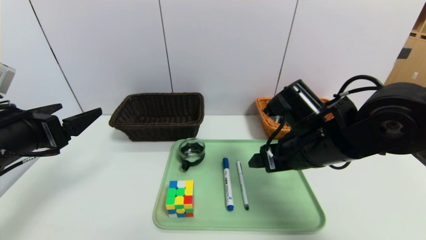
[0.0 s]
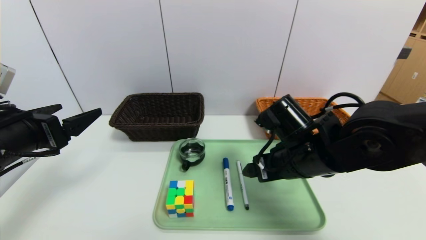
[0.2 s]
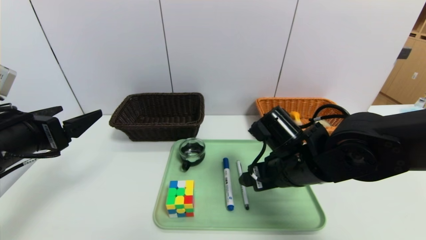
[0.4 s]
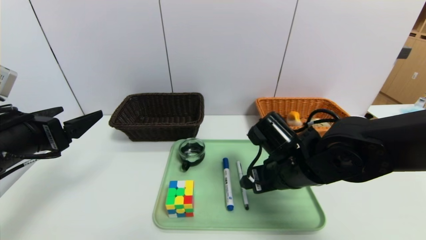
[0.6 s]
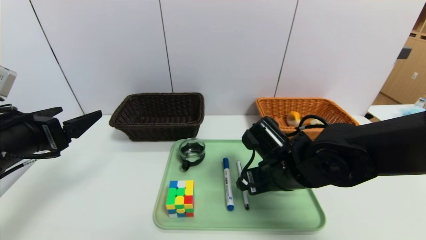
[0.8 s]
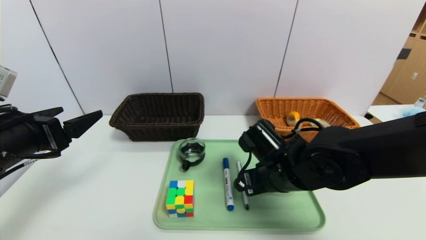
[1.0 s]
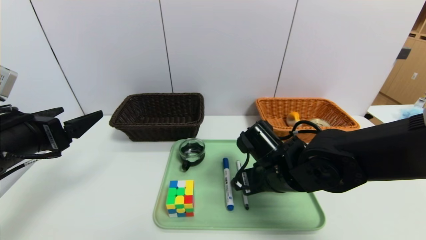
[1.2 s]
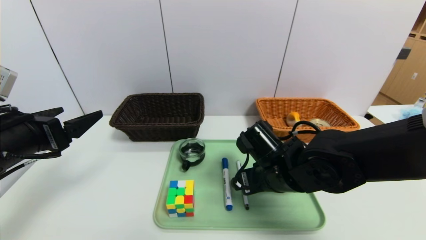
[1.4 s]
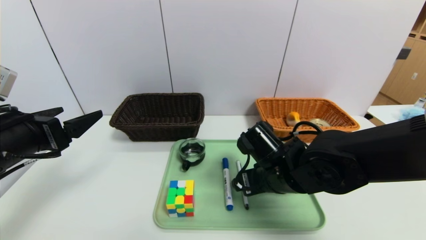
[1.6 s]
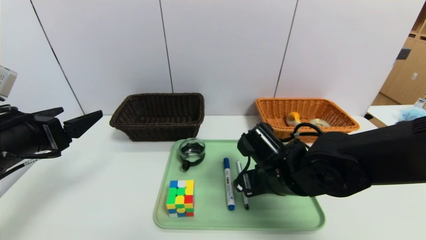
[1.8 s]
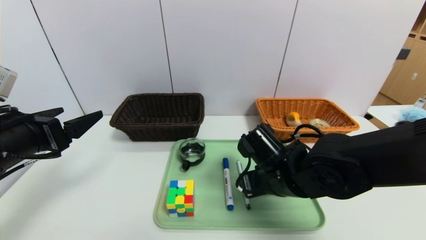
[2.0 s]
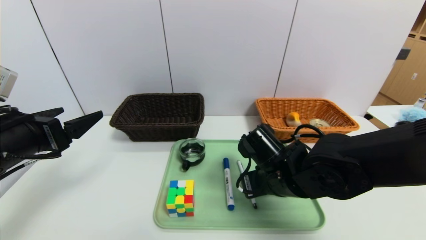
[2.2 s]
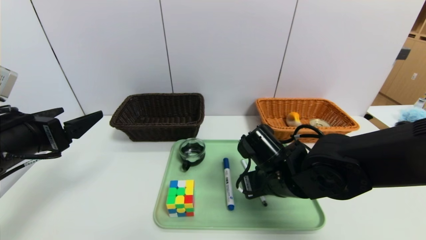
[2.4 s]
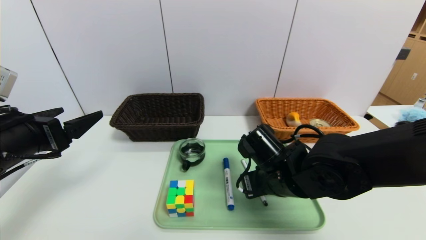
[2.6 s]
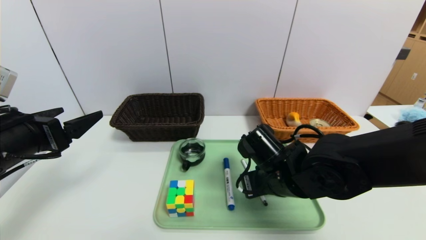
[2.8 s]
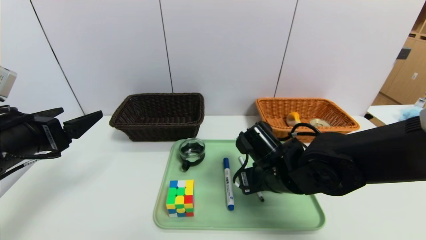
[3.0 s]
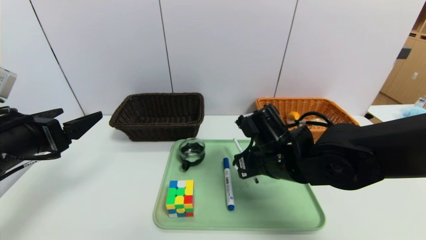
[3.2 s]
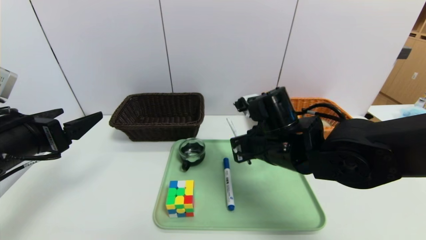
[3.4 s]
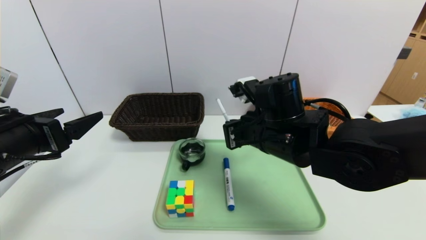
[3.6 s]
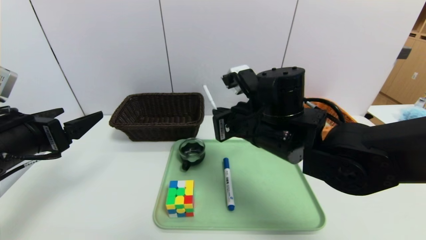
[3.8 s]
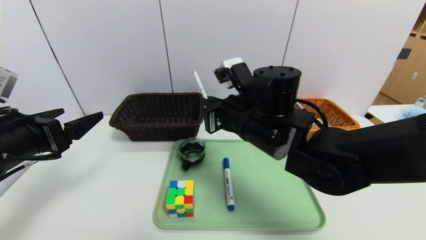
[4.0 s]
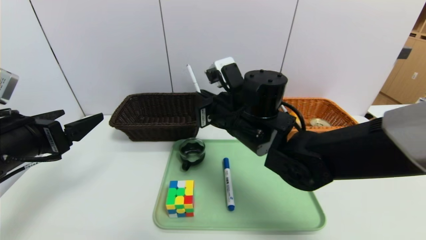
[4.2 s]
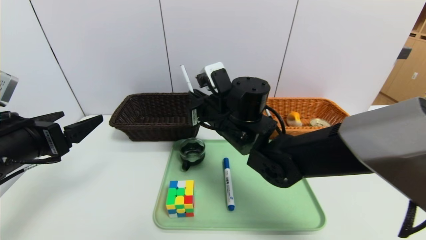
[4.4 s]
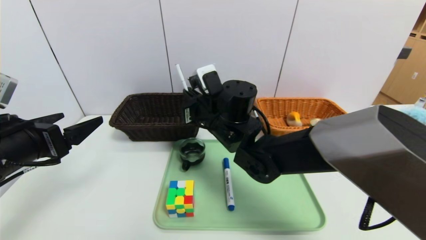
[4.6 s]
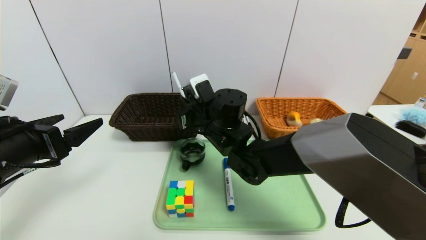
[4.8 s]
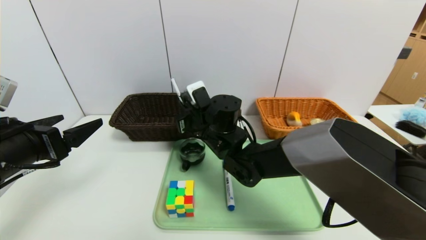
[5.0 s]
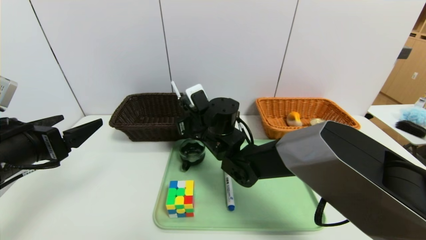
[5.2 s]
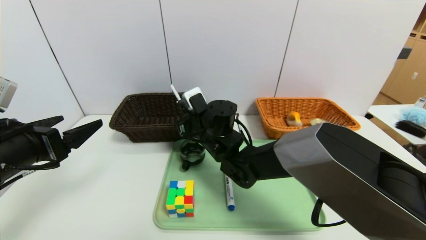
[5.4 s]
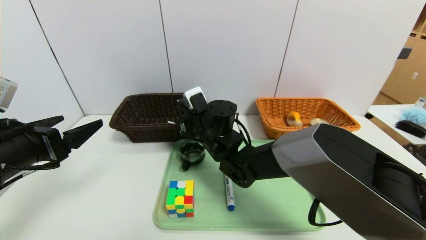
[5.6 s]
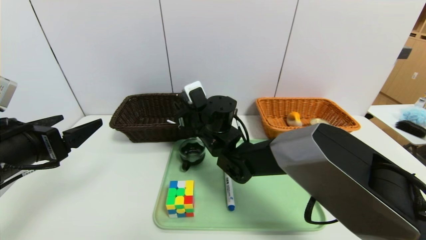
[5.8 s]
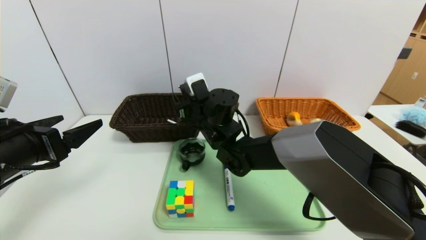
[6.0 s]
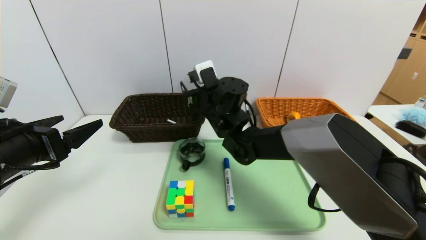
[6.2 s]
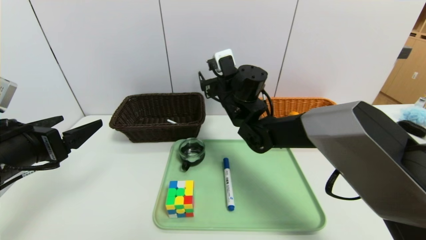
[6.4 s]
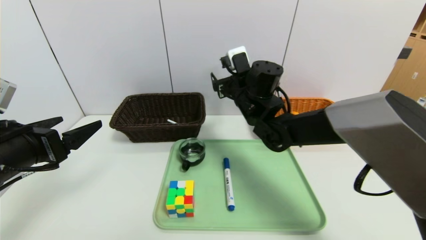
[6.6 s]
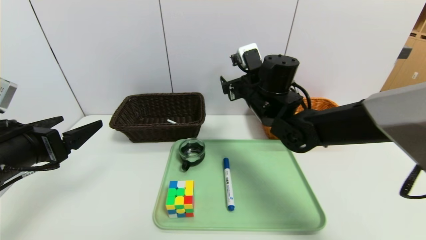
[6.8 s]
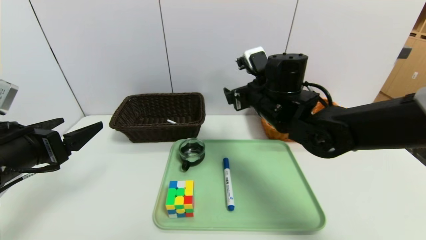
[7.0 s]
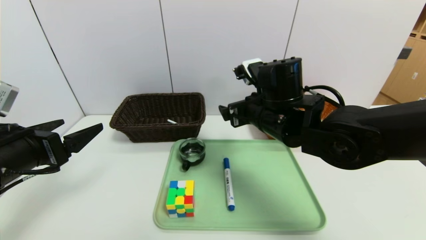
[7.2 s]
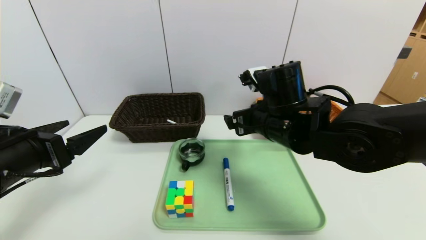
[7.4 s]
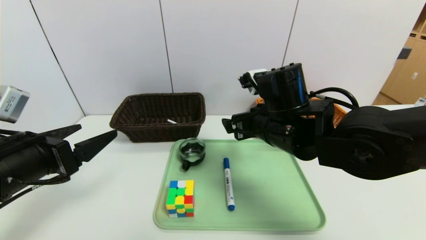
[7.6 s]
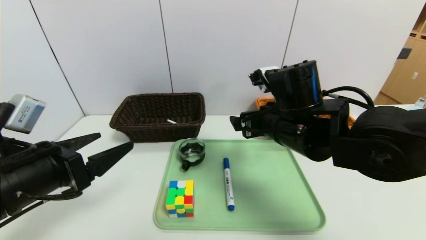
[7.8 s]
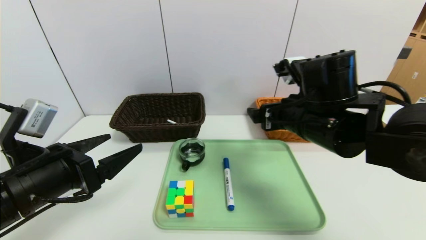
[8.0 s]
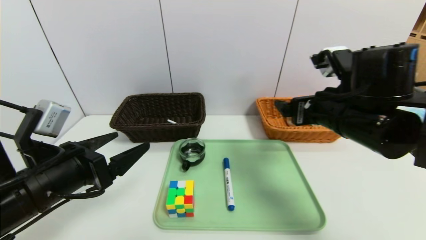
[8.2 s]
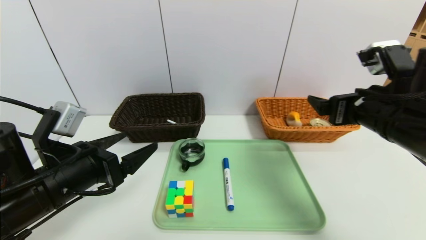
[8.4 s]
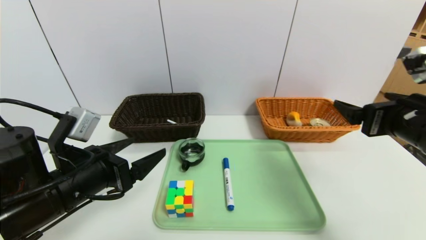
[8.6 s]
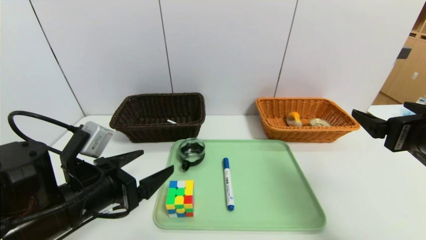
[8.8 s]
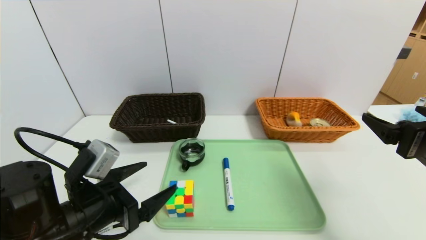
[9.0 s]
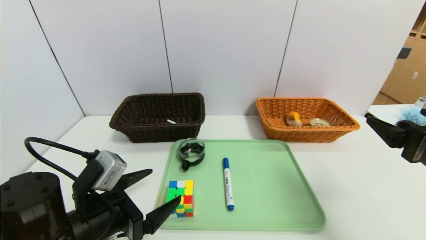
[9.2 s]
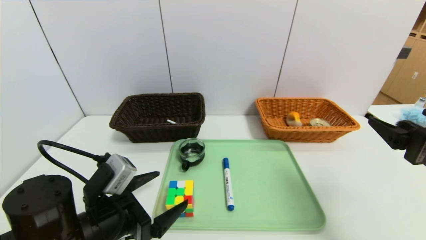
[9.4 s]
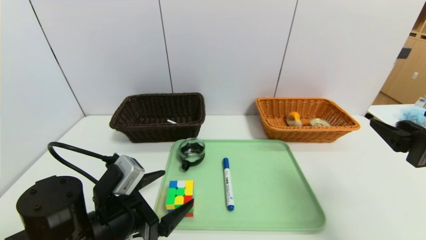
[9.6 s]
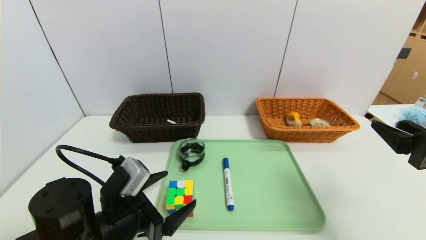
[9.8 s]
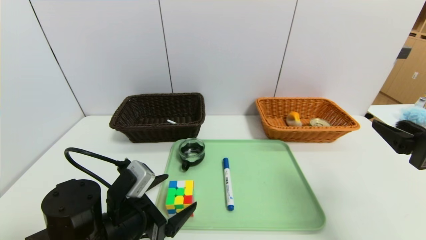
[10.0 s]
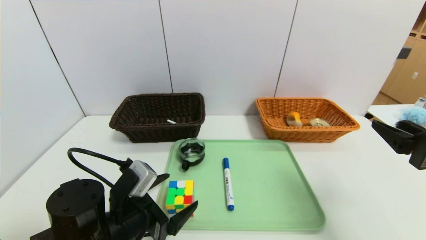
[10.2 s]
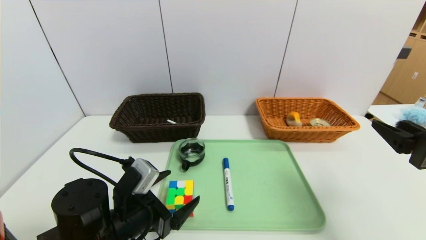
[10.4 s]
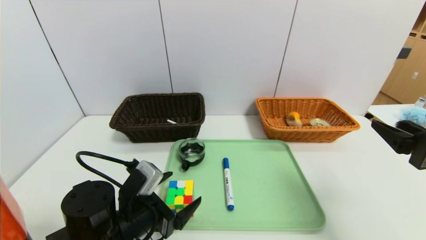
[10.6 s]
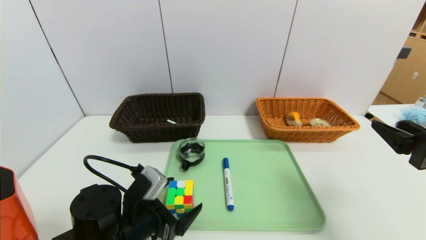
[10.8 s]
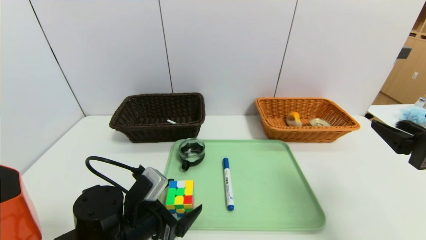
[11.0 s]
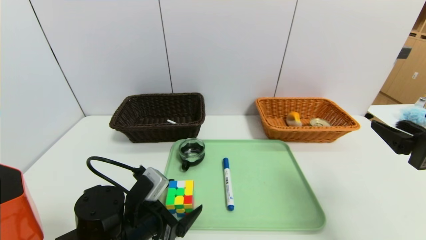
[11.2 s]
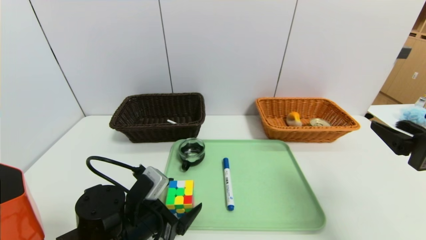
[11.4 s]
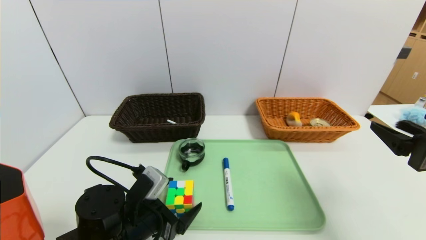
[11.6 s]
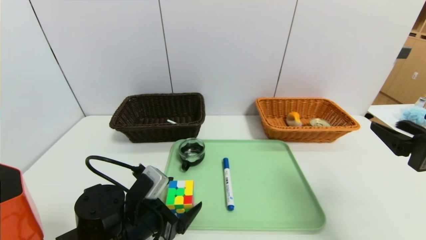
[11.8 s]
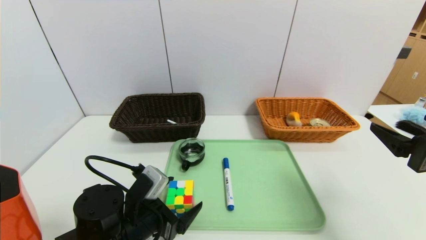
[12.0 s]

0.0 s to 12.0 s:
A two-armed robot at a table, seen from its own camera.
Task of the whole recording: place the food in the right basket with the right gripper, and place the non food items in the left basket with the left gripper.
0.0 to 1.6 s: The right gripper is displaced downward by some 10 cm.
1.6 to 3.0 s: The right gripper closes.
3.0 to 4.4 s: The right gripper is displaced to the left, upward and forward by roughly 10 cm.
4.4 to 6.0 s: The right gripper shifts about 5 cm forward, and opens its fingers.
6.0 to 7.6 s: The right gripper is displaced to the right, backward and upward by approximately 15 cm.
7.6 to 9.0 s: The left gripper goes roughly 10 cm downward and to the right. The right gripper moves to the right and backward, some 25 cm.
9.0 to 10.4 s: The left gripper shifts by roughly 5 cm.
10.4 to 12.0 s: There are only small adjustments of the grippers.

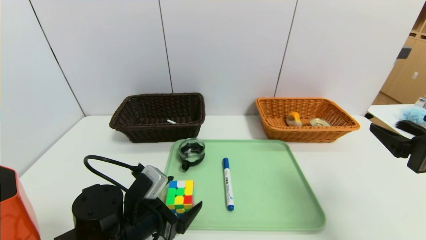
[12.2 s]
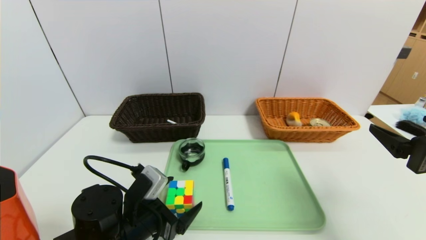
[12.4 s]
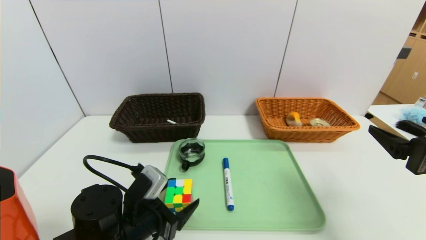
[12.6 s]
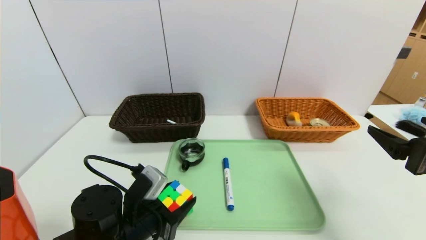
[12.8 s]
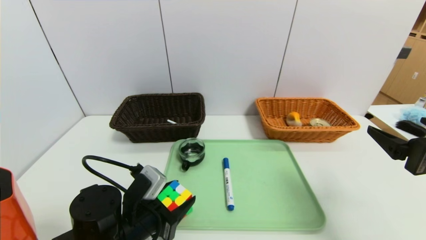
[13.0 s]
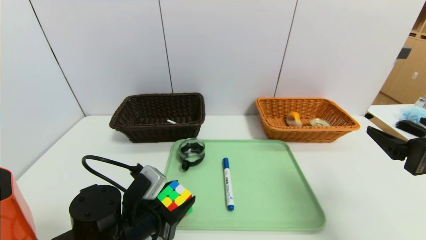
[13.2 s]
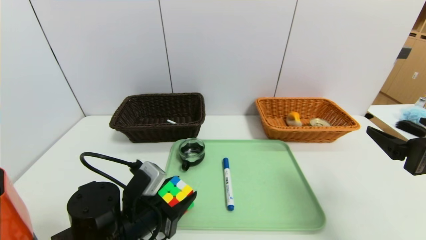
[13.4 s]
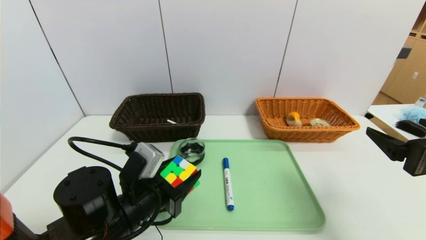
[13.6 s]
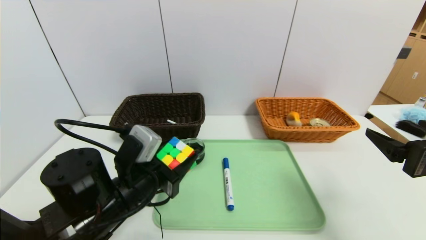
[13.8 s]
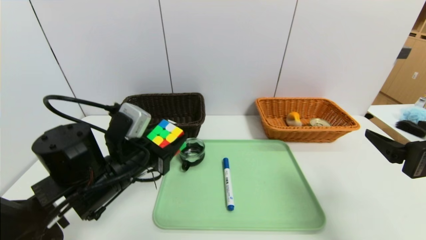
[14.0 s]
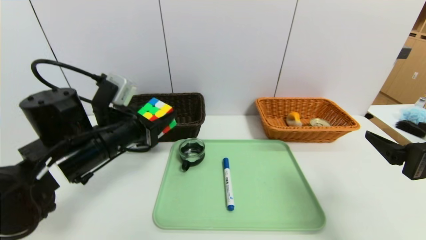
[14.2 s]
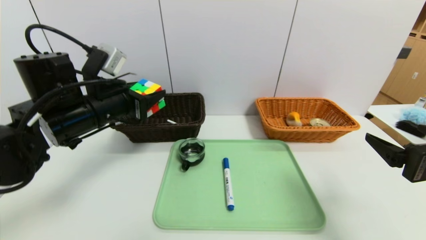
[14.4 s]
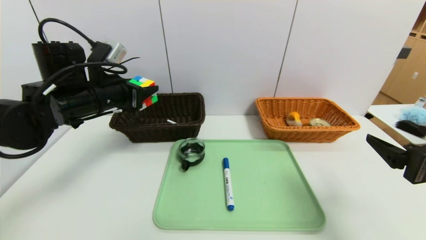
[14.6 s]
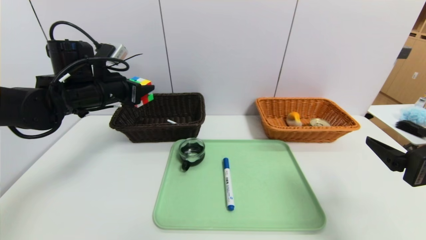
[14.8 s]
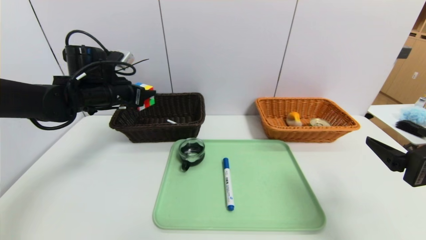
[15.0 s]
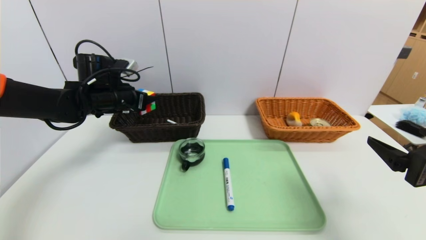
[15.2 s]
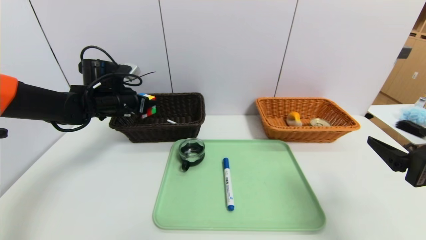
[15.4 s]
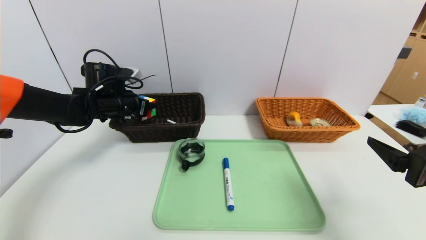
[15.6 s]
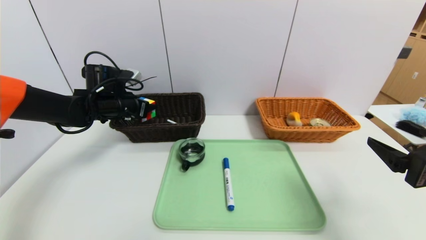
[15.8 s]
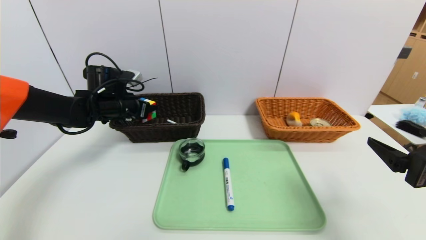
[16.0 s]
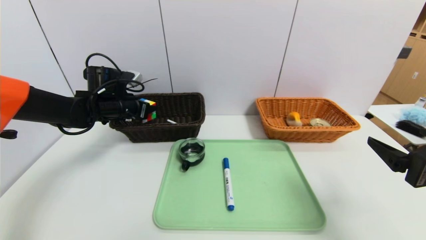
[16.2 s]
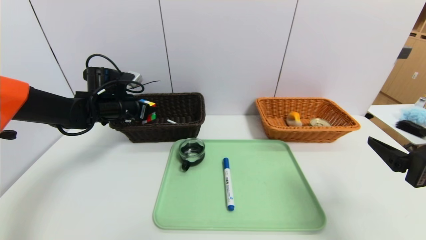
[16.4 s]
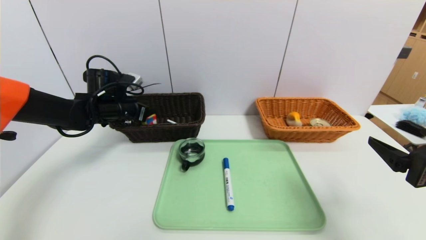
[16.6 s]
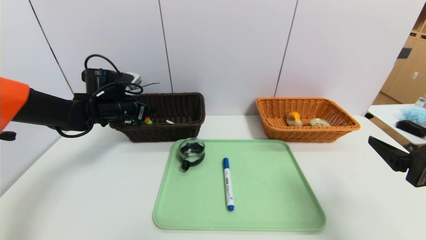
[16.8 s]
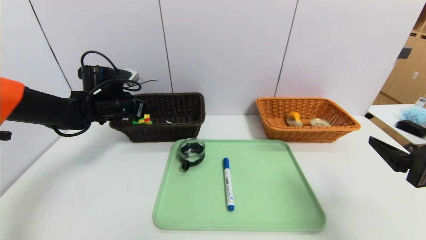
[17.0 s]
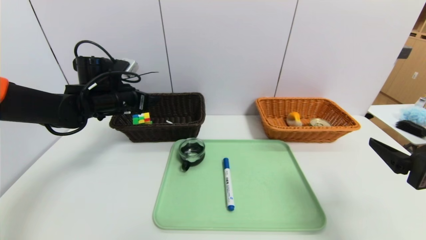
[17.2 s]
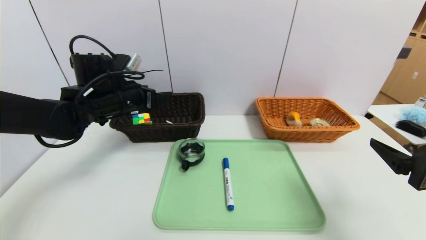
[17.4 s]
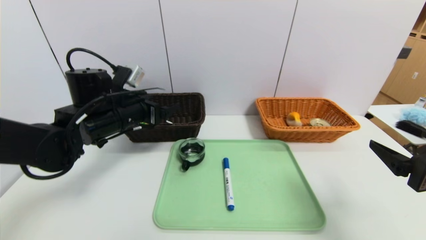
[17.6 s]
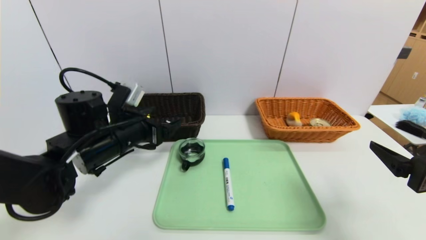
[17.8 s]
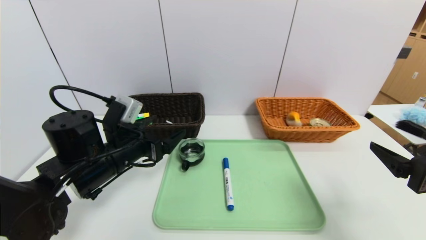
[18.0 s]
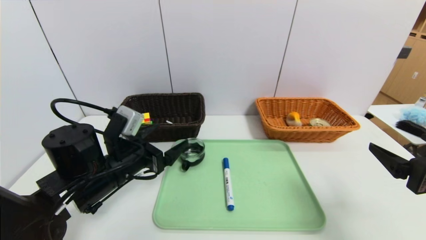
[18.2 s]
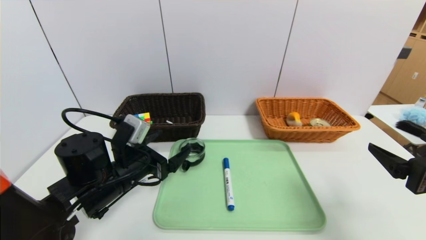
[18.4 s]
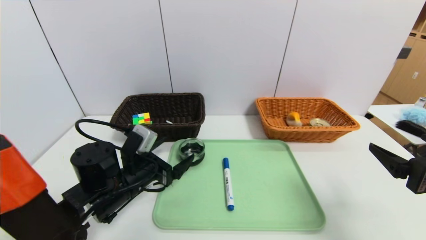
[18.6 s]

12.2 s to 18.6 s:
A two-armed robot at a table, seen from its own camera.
Task of the whole recording: place the food in the right basket with the right gripper, and place the non food items in the left basket with the left gripper.
Step, 12.2 to 17.4 s: Grasp the rubiks cube and put it in the left basket.
12.2 to 13.8 s: The left gripper moves upward, about 5 cm, and closes up.
13.8 to 15.4 s: The left gripper travels forward and to the left by about 25 cm.
15.4 to 17.0 s: There are only small adjustments of the grippers.
17.0 to 18.6 s: The left gripper is displaced backward, to the right and downward by roughly 20 cm.
